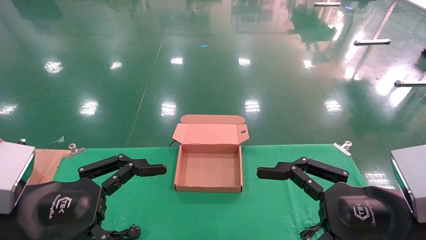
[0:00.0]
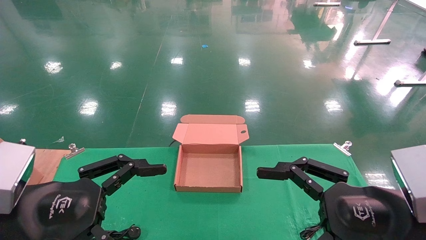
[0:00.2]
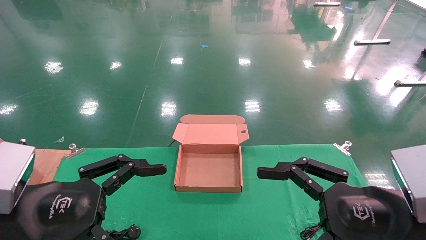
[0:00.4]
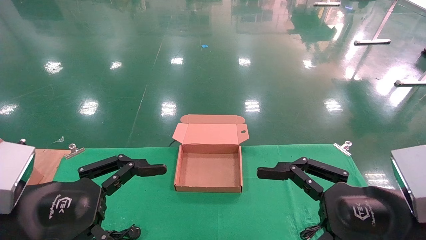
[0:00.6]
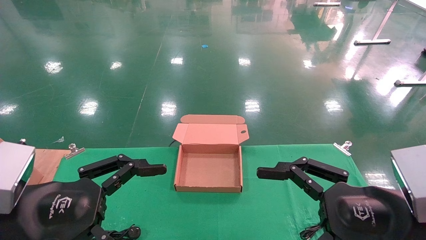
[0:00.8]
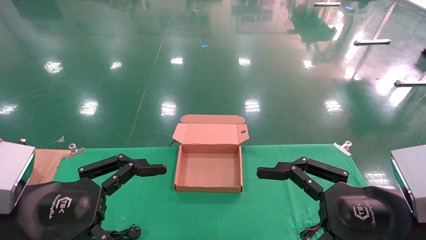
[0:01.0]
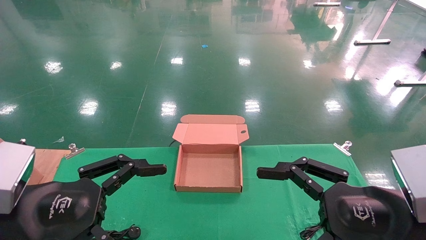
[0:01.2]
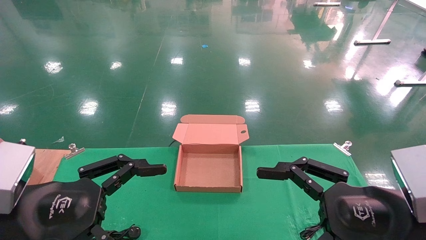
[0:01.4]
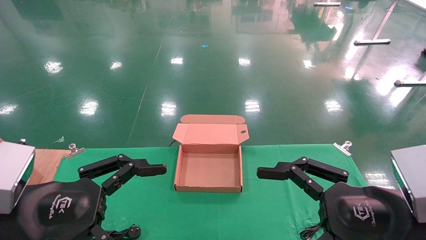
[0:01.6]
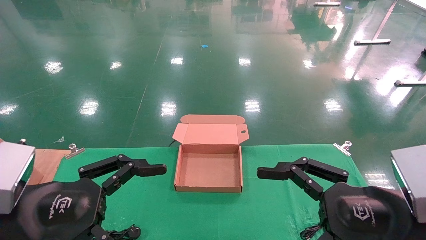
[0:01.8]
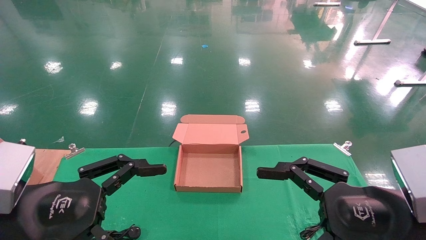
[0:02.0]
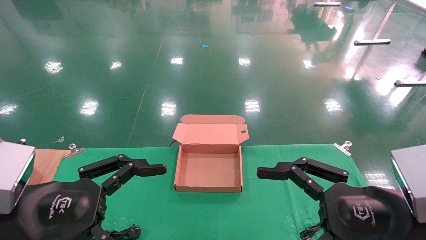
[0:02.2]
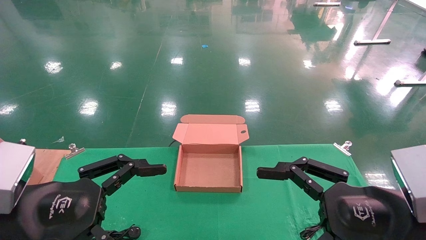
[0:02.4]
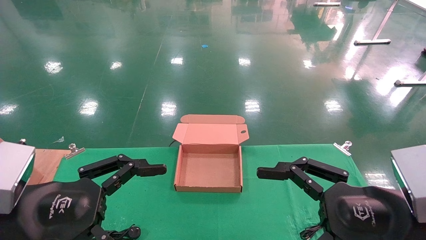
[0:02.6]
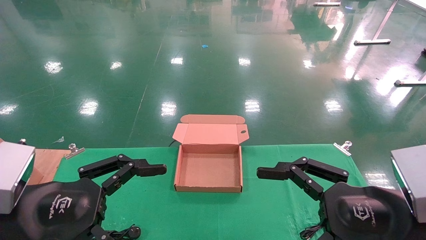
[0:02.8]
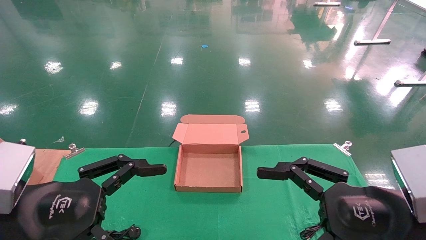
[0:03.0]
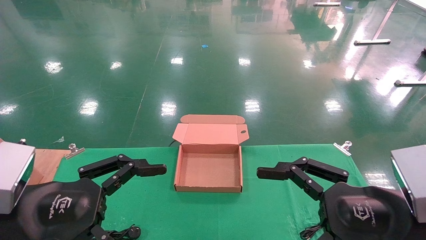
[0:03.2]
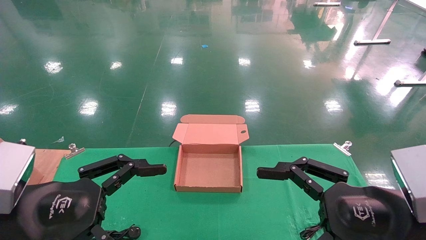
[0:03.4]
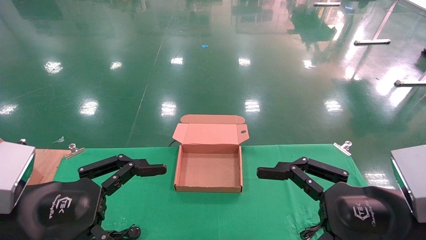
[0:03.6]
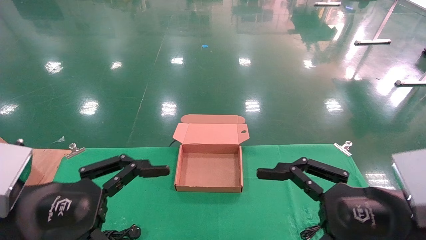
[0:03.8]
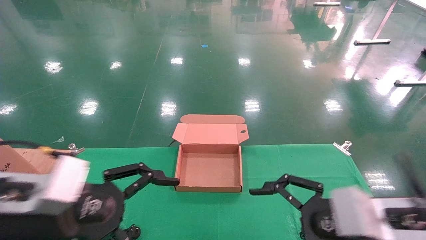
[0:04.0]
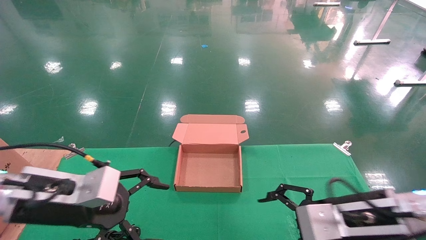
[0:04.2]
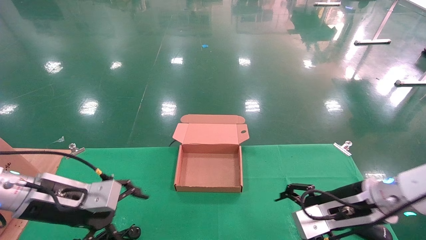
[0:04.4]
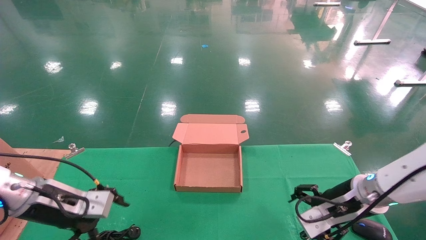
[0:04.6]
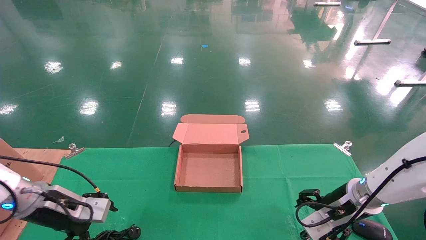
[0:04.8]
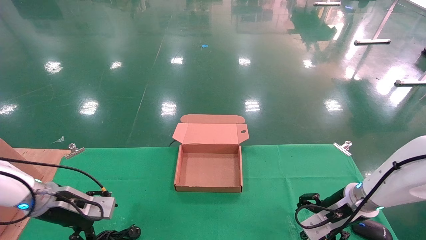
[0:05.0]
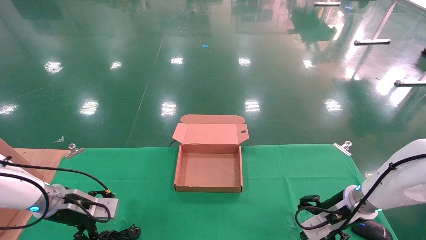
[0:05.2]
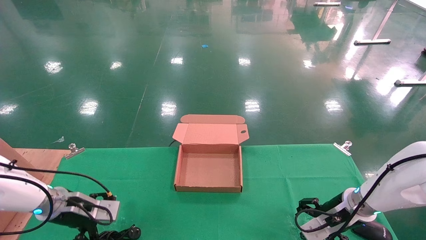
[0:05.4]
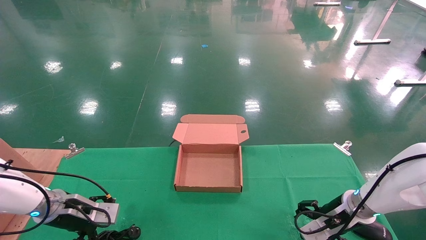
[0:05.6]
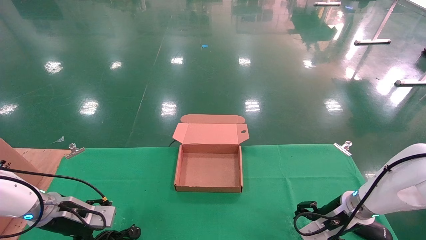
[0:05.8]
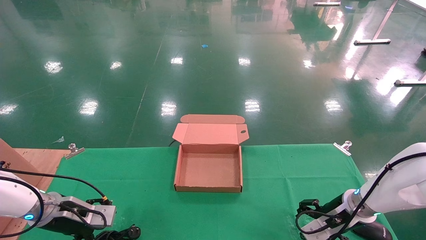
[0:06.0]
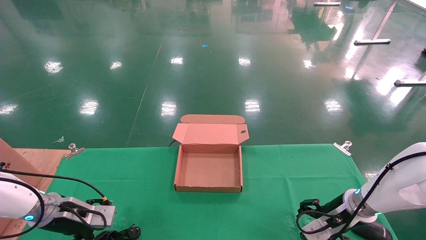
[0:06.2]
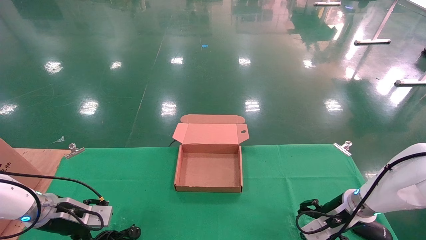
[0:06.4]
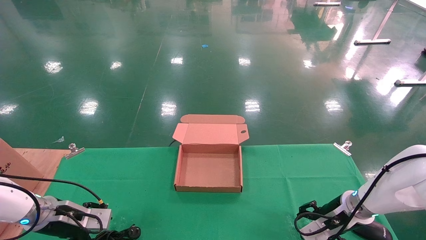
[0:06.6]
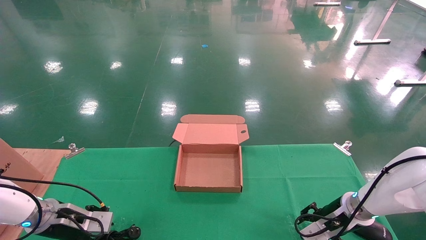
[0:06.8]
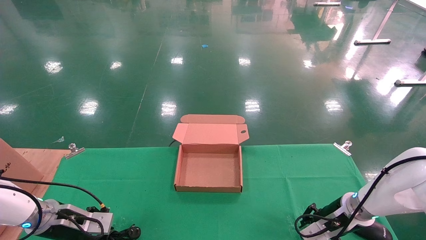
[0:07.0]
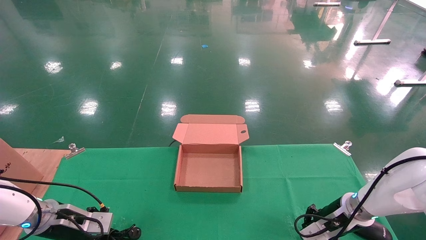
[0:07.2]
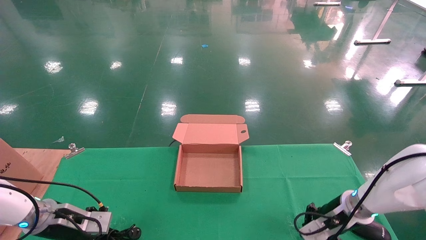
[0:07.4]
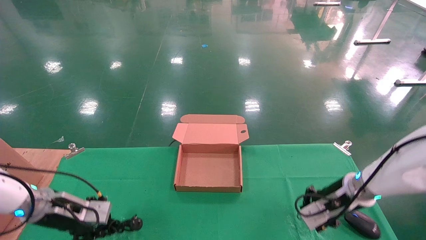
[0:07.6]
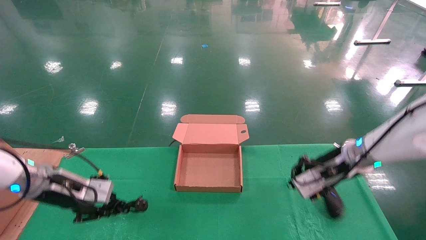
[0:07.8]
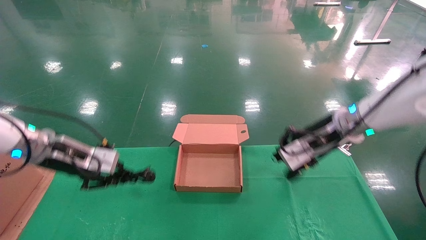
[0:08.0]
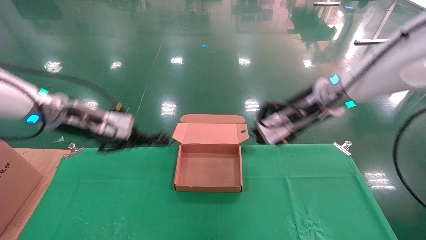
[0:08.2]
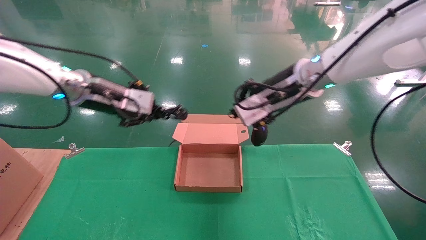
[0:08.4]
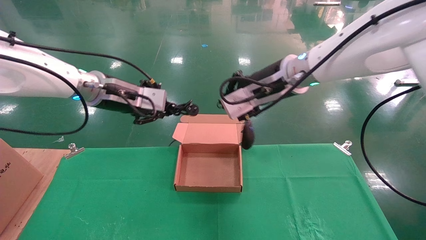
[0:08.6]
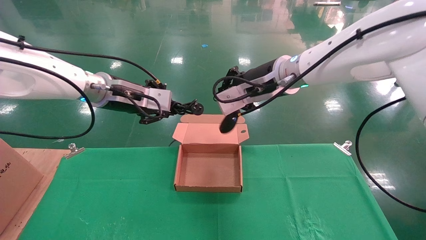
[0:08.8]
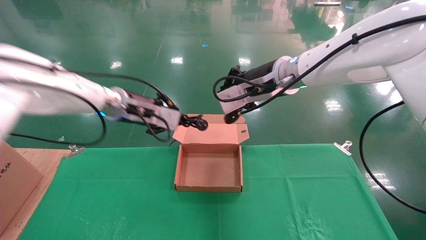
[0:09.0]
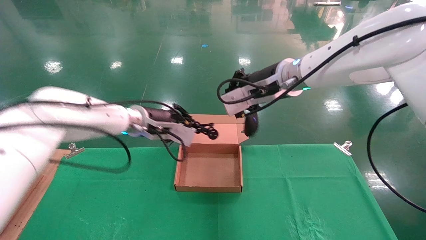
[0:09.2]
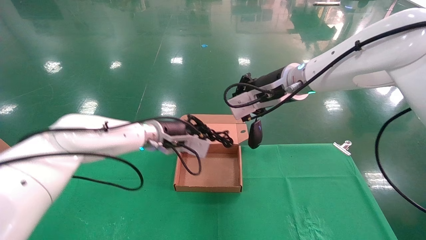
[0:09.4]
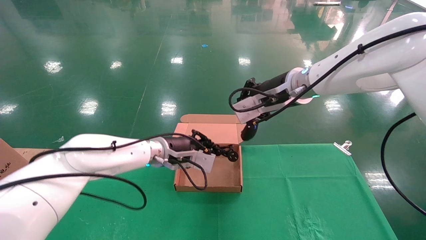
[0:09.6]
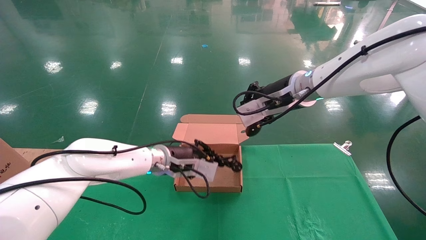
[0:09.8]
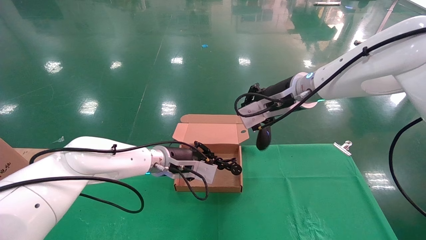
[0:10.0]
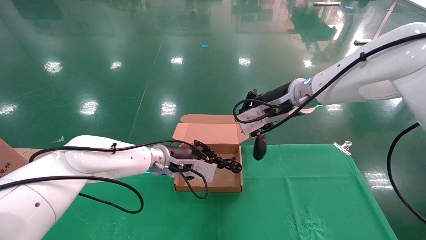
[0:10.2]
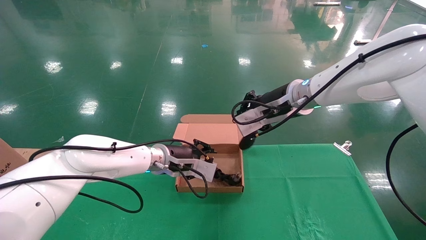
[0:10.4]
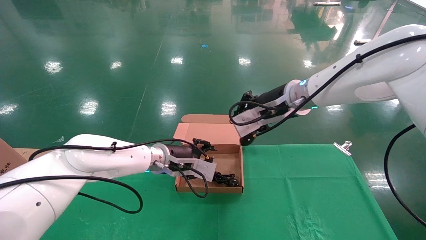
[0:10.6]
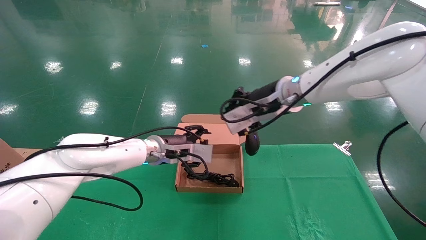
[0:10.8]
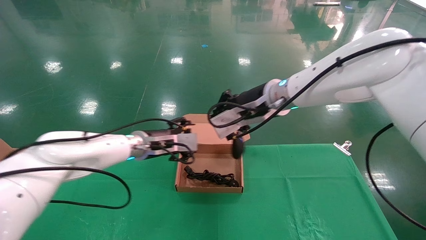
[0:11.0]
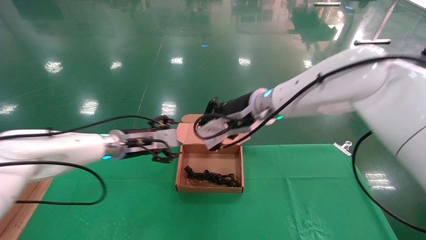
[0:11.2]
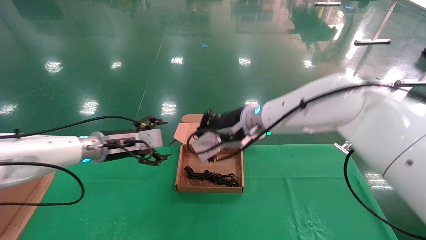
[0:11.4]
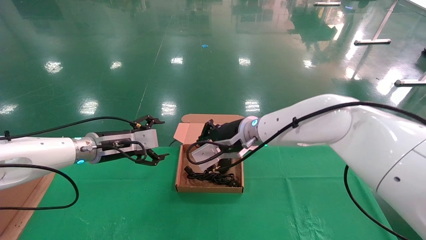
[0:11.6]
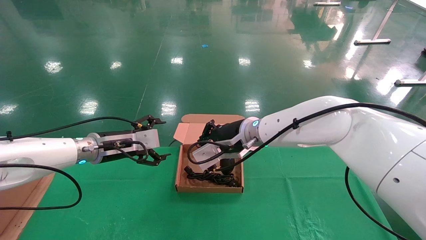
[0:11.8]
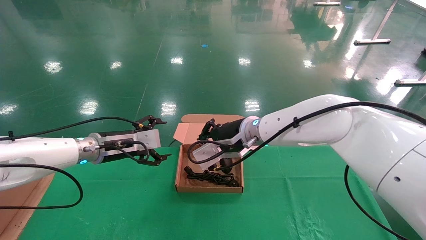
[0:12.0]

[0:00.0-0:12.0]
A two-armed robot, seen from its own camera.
Step, 0:04.8 to 0:08.0: Grab and lift both the mouse and power cord from the accessory packaging area at the same time.
0:00.0 to 0:03.0: Both grippers stay put.
0:03.0 to 0:04.4: The right gripper shifts approximately 15 cm forward and downward. Meanwhile the left gripper goes about 15 cm forward.
0:04.4 to 0:06.0: The left gripper is displaced downward, forward and to the left by some 15 cm, while the right gripper goes about 10 cm forward and downward.
0:06.0 to 0:07.6: The left gripper closes. The right gripper travels upward by some 5 cm, and closes up.
0:07.6 to 0:09.0: The left gripper heads upward and to the right, covering about 25 cm, while the right gripper goes about 30 cm upward and to the left.
0:09.0 to 0:10.4: The left gripper moves downward and to the right, some 15 cm.
0:10.4 to 0:12.0: The right gripper goes approximately 10 cm to the left and downward, while the left gripper goes approximately 15 cm to the left, and opens its fingers.

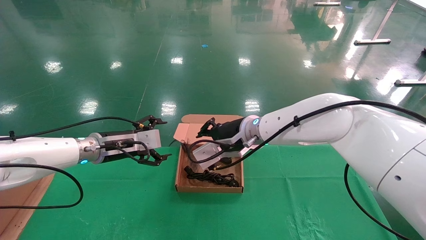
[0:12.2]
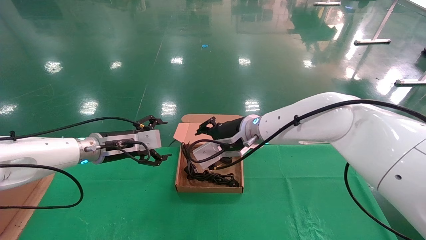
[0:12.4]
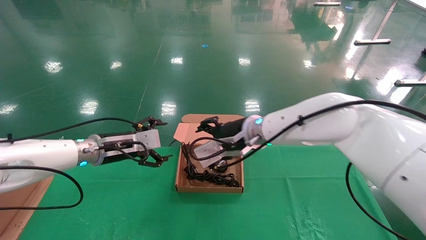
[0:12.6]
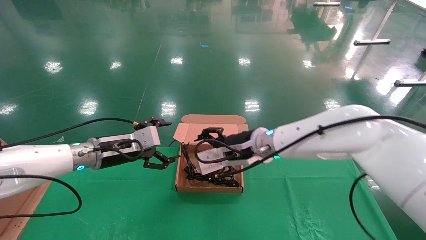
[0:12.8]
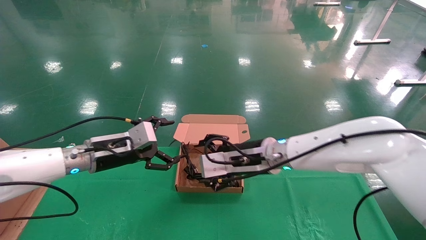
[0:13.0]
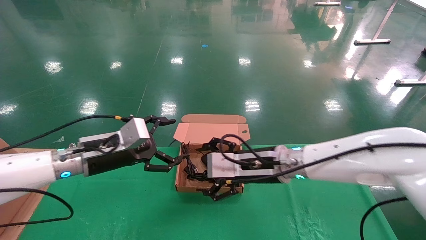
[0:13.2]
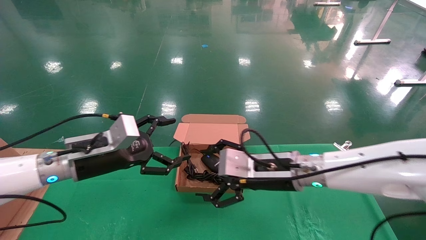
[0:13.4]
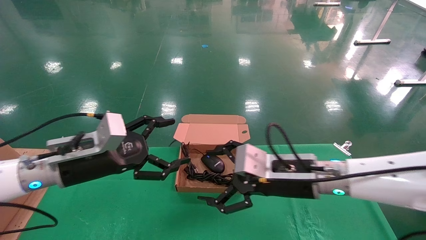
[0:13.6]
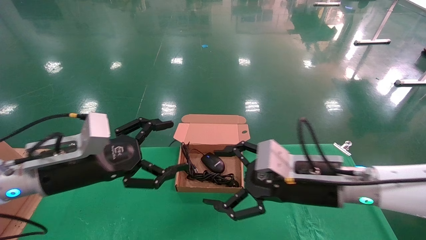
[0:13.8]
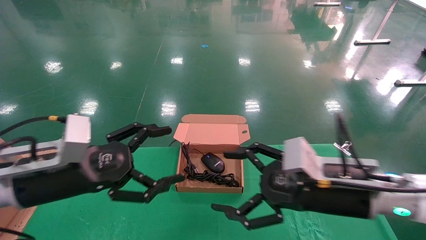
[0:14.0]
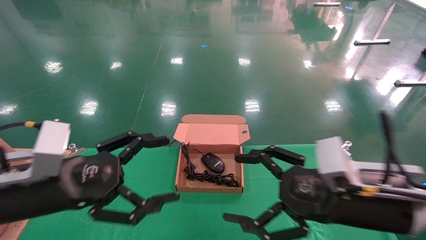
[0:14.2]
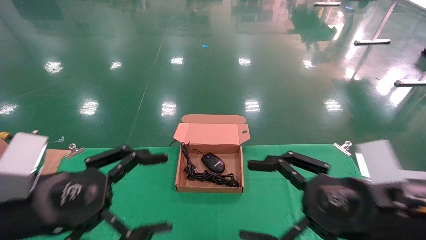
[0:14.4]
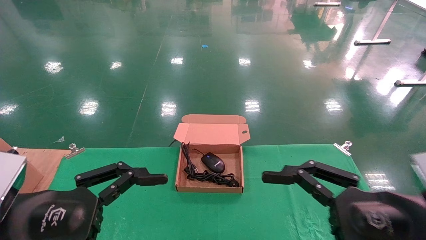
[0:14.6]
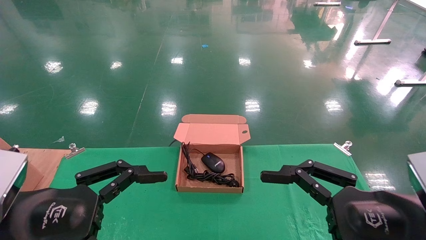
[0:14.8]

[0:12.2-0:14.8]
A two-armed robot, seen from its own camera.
0:12.2 to 0:13.4: The right gripper shifts roughly 10 cm backward, to the right and downward, and opens its fingers. Meanwhile the left gripper is displaced backward by roughly 10 cm.
0:13.4 to 0:14.8: The right gripper shifts some 25 cm backward and to the right, while the left gripper shifts some 20 cm backward.

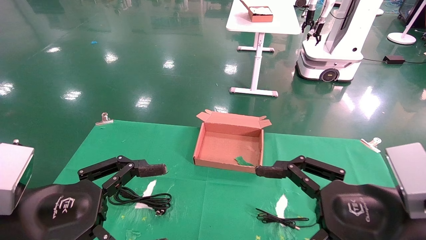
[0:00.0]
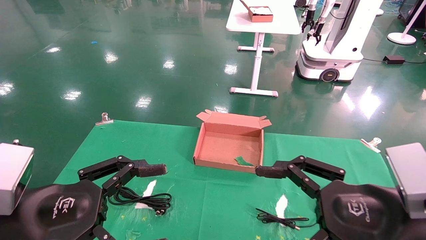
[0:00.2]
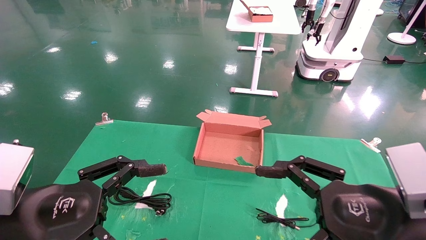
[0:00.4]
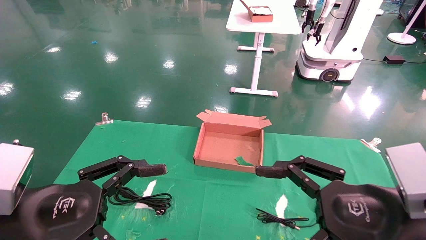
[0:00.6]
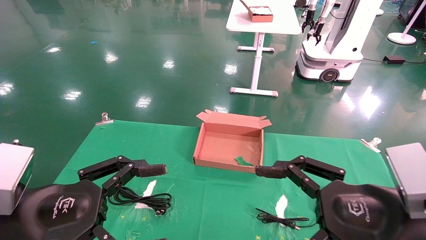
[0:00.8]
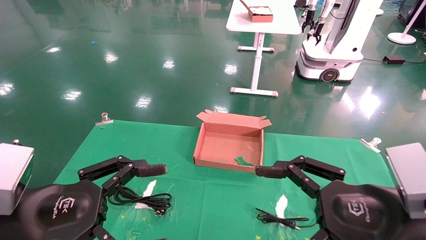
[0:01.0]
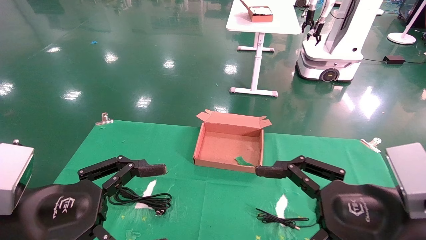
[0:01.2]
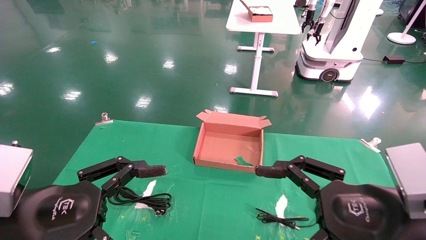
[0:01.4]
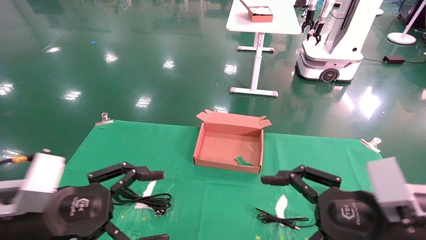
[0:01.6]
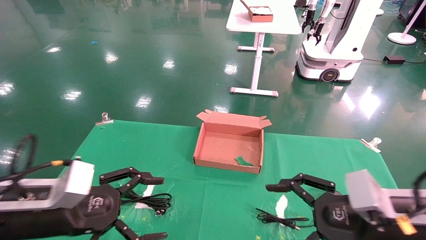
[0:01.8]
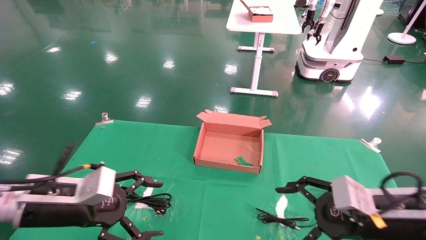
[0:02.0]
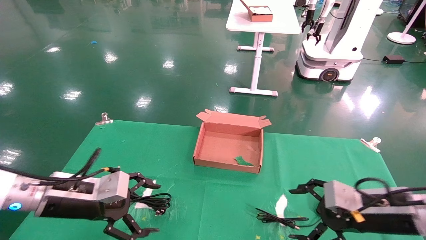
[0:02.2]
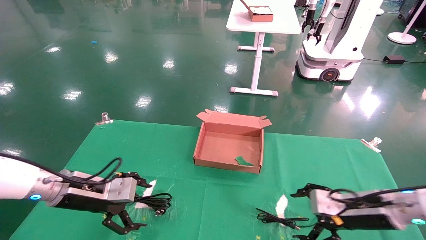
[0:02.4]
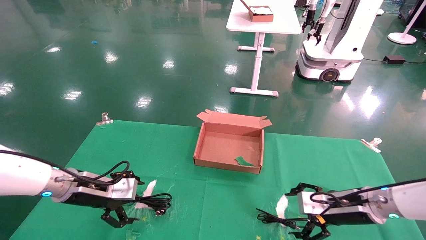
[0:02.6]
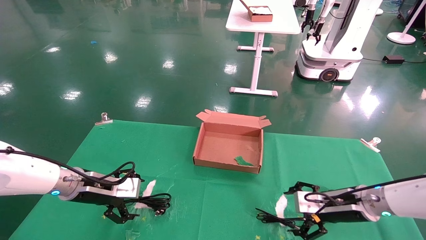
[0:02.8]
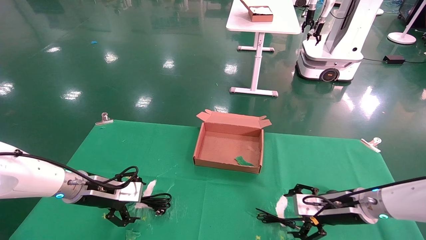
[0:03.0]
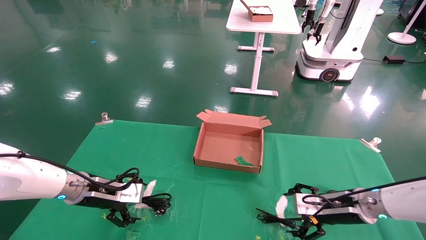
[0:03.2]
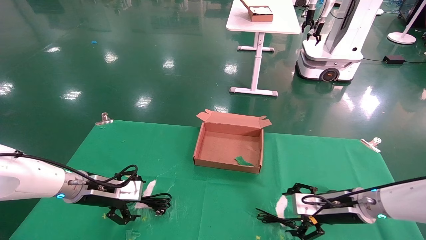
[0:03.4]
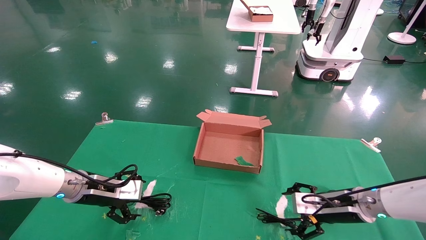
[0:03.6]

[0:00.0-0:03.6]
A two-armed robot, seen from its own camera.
0:00.0 to 0:01.8: Both grippers travel together forward, roughly 5 cm.
0:01.8 to 0:03.6: The left gripper shifts some 15 cm forward. Meanwhile the right gripper is displaced forward and downward by approximately 20 cm.
